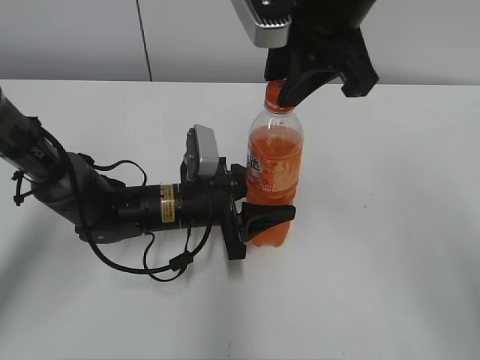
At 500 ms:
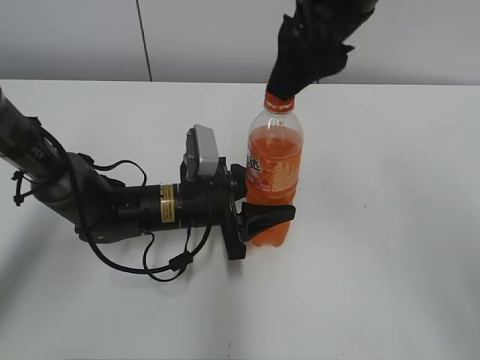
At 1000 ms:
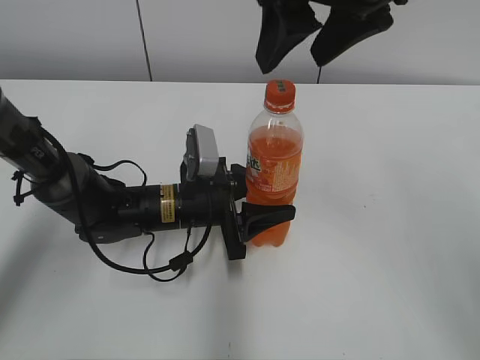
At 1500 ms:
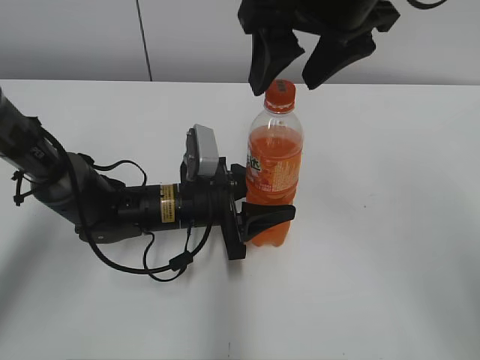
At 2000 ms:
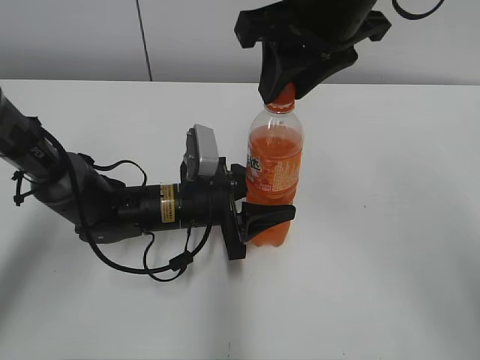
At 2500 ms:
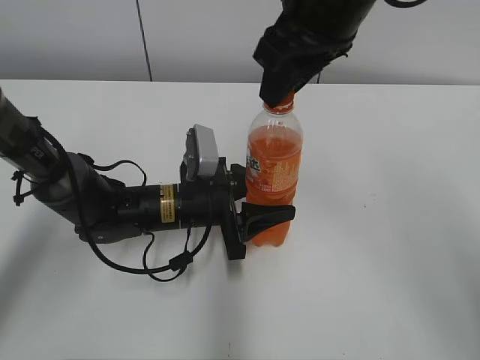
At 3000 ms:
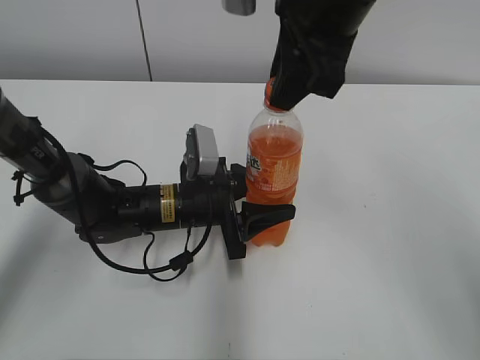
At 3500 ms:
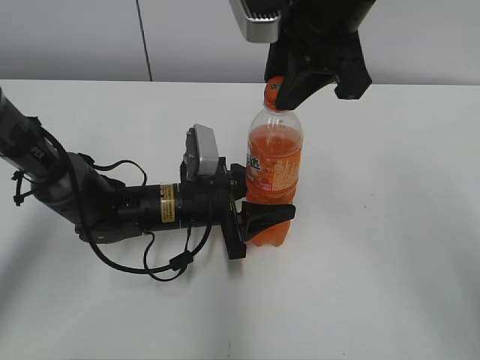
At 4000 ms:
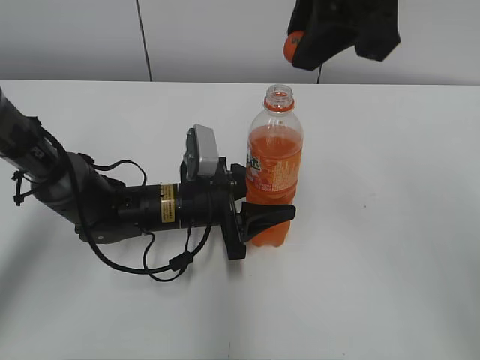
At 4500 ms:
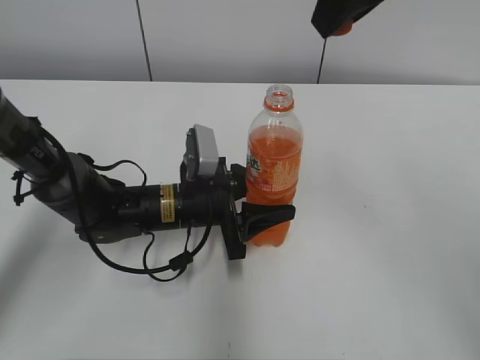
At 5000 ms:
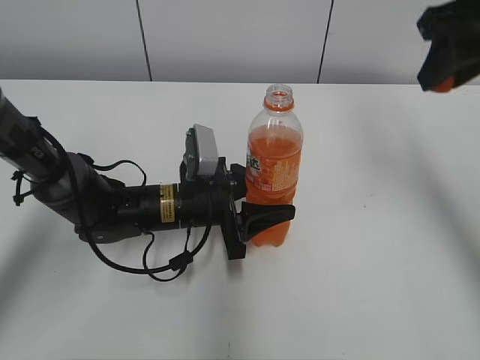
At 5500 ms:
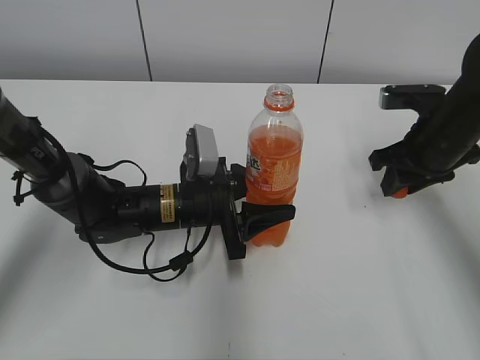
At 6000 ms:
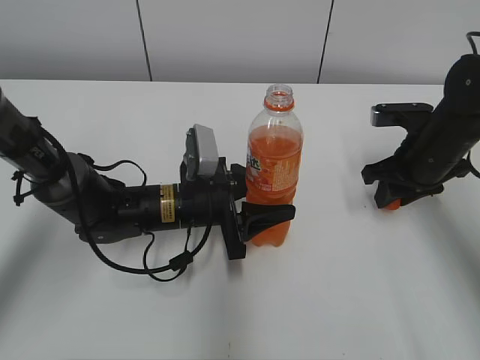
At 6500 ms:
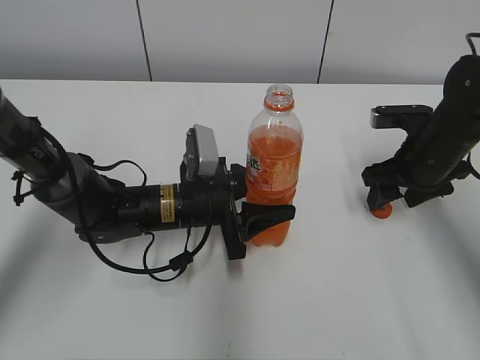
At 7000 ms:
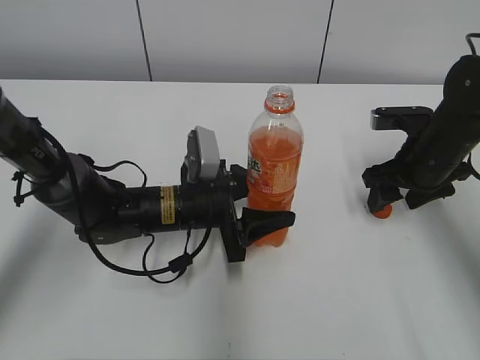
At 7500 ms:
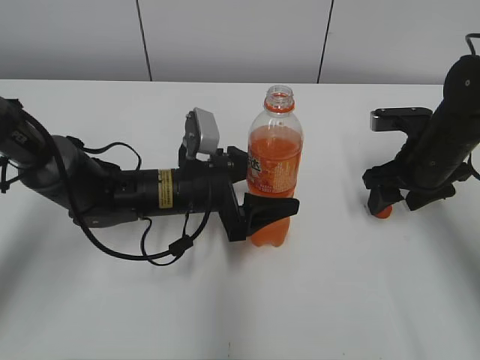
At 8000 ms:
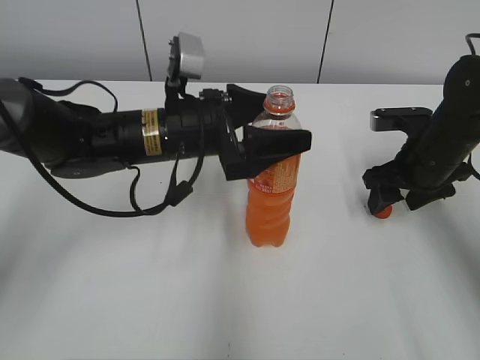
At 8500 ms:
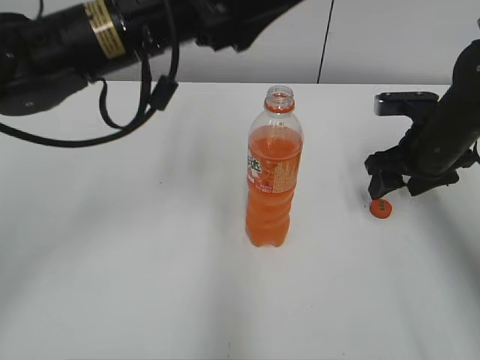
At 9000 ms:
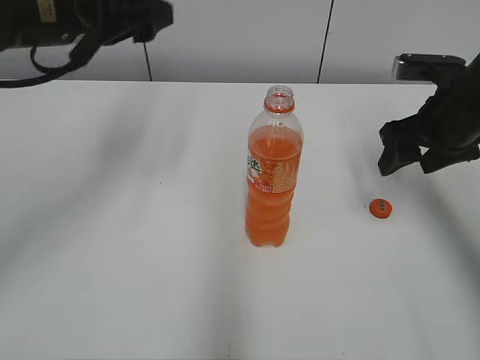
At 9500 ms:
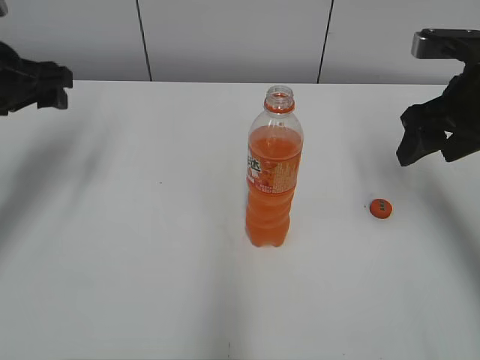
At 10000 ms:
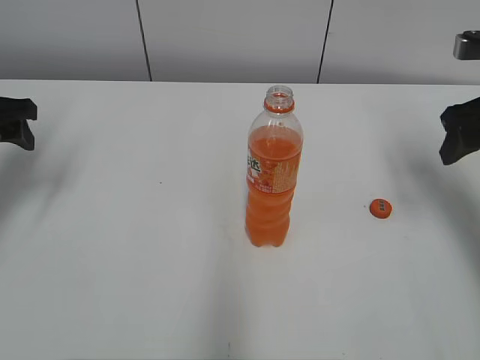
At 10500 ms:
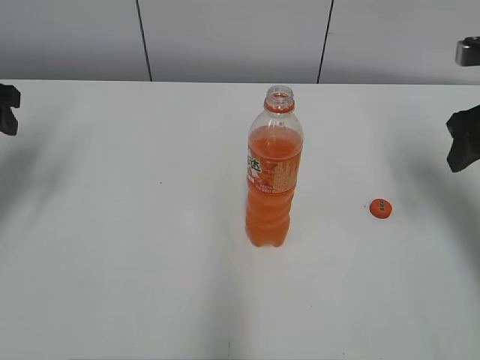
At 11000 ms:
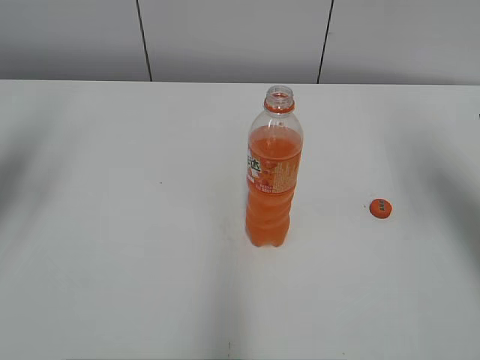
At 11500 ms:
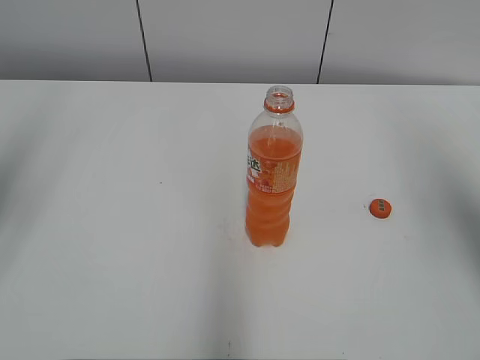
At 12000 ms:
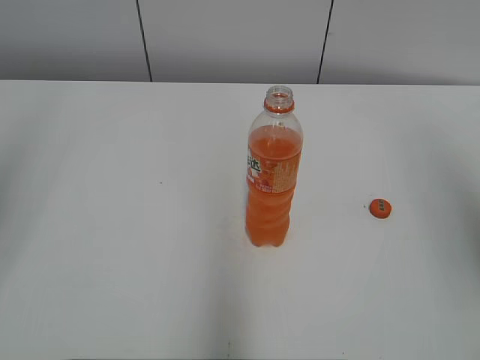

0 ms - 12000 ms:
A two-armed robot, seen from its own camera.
Step, 4000 ms - 6500 ms: Place the bottle cap on the right.
0 ms - 2000 ms: The right gripper opens, then closes once more.
2000 ms - 4000 ms: The right gripper moves approximately 5 cm.
4000 ms - 6000 ms: The right gripper moves downward and to the right, roughly 30 cm.
6000 ms - 8000 ms: The left gripper heads upward, covering about 10 cm, and opens its fingers, while the right gripper opens up.
8000 ms - 10000 ms: The left gripper moves to the left, approximately 25 cm. Meanwhile the right gripper heads upward, covering approximately 10 cm.
10000 ms - 12000 ms: Both grippers travel together upward and backward, approximately 25 cm.

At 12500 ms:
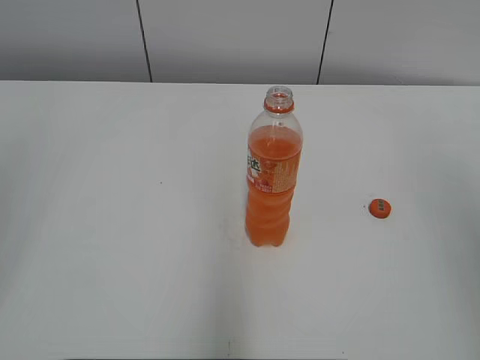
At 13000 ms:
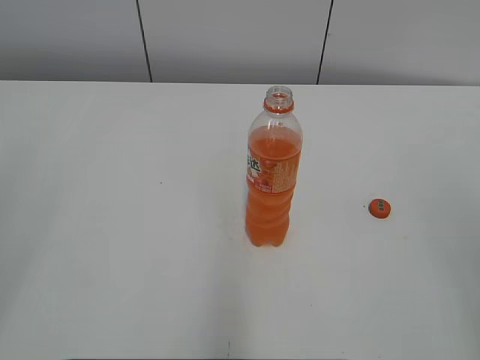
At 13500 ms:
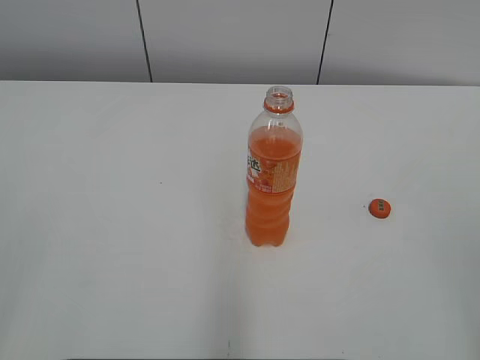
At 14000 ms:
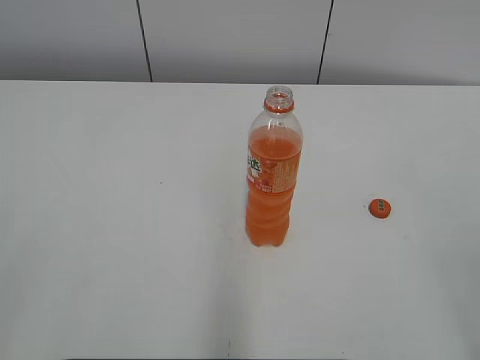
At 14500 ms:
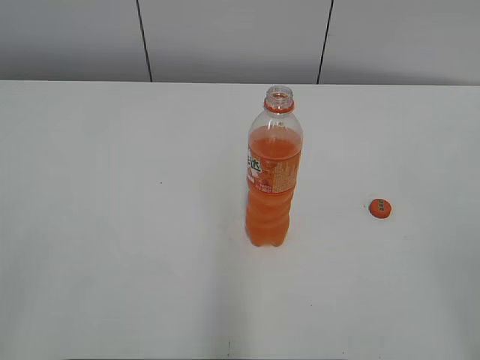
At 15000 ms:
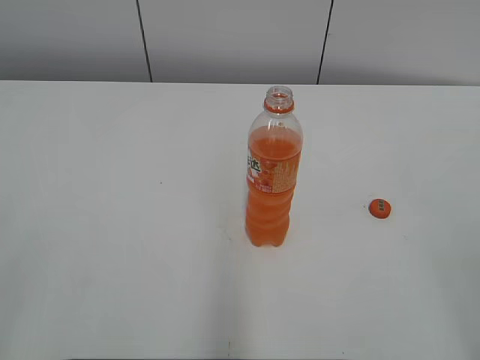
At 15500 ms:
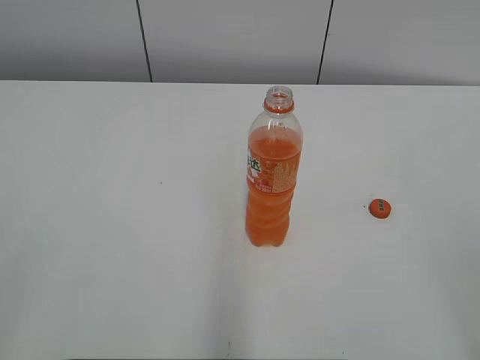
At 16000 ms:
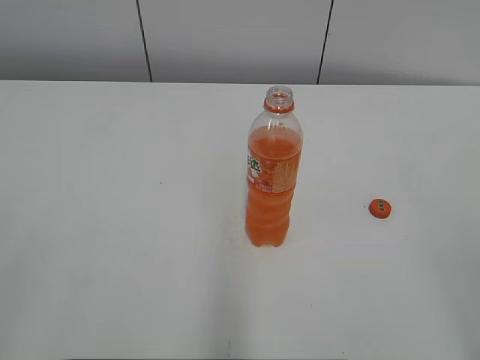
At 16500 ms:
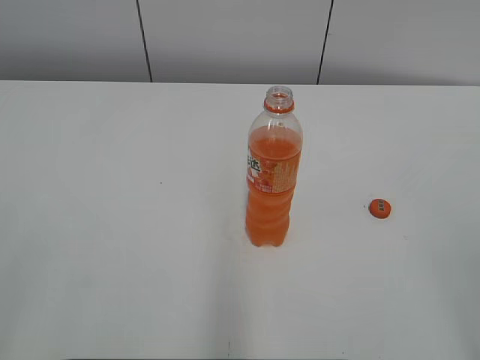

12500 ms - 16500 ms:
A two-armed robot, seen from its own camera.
14500 ms - 16500 ms: The two grippers keep their place.
